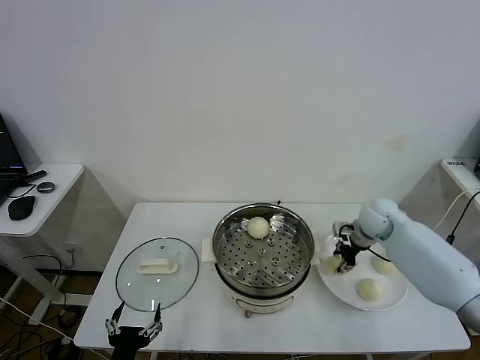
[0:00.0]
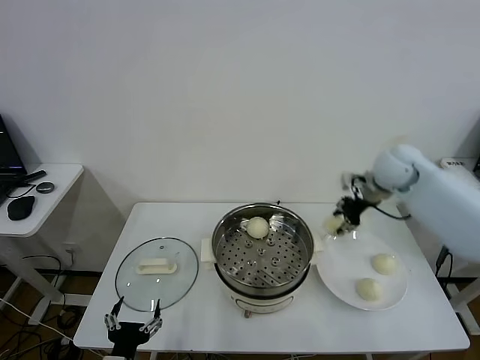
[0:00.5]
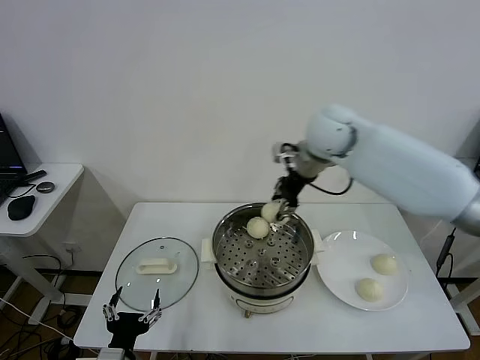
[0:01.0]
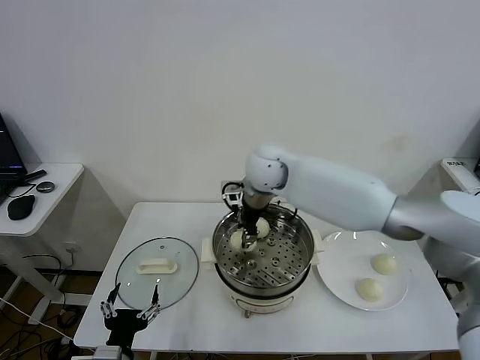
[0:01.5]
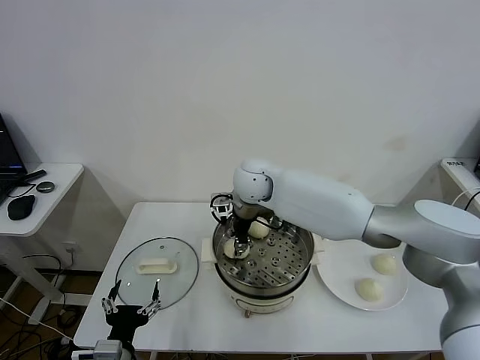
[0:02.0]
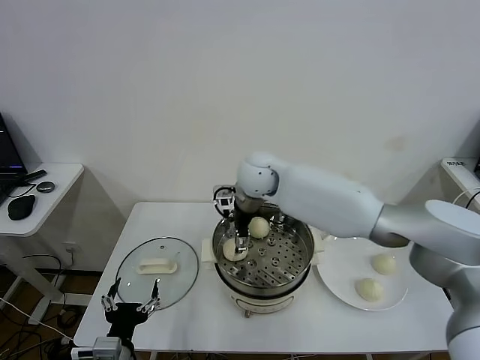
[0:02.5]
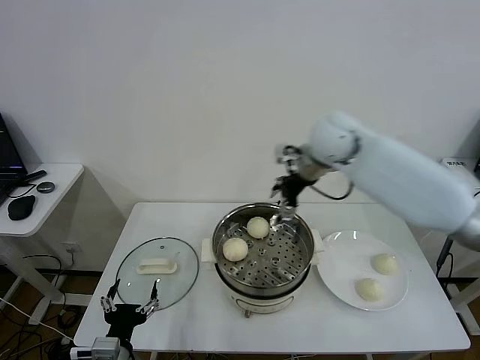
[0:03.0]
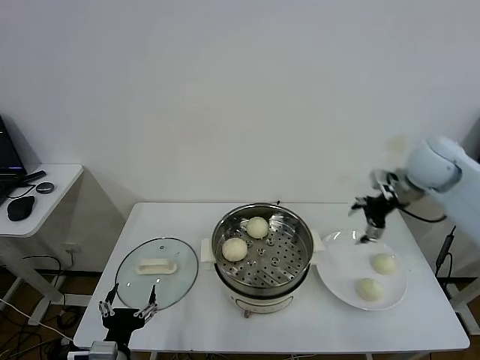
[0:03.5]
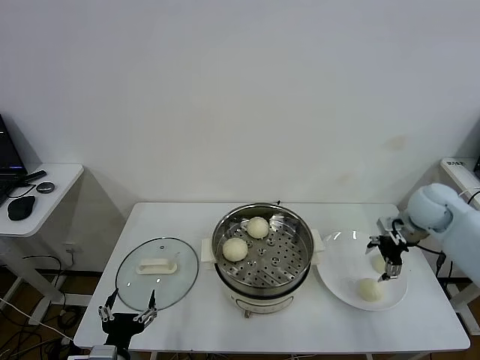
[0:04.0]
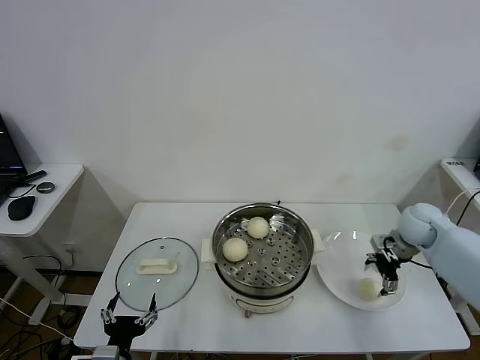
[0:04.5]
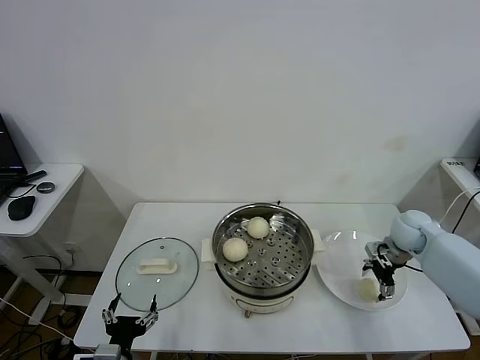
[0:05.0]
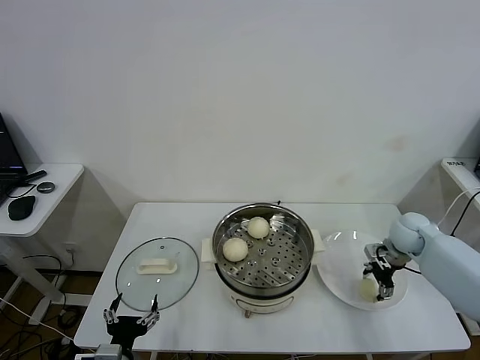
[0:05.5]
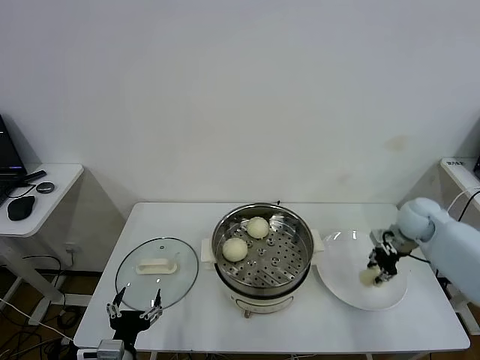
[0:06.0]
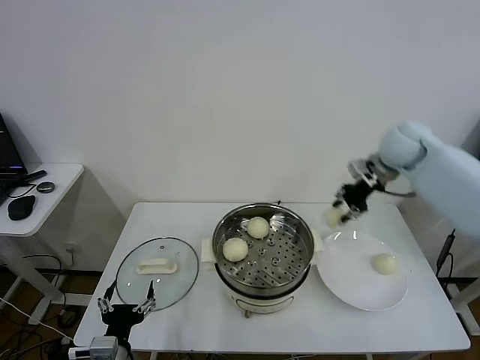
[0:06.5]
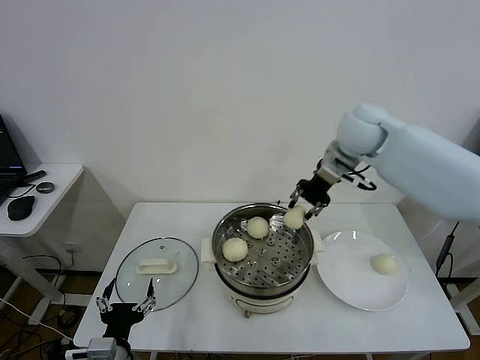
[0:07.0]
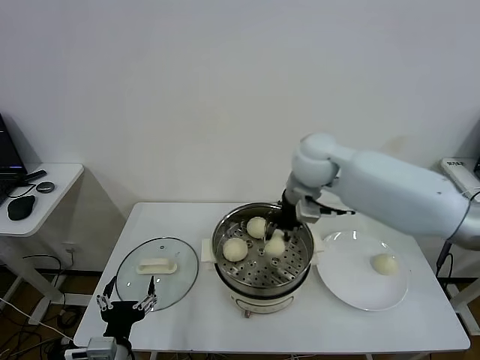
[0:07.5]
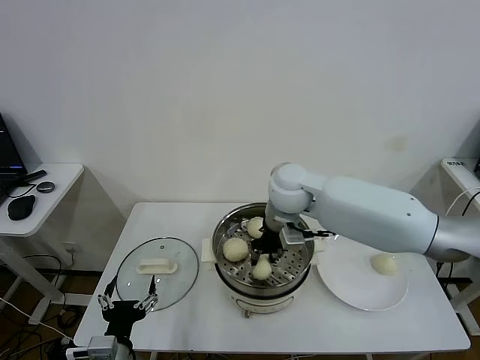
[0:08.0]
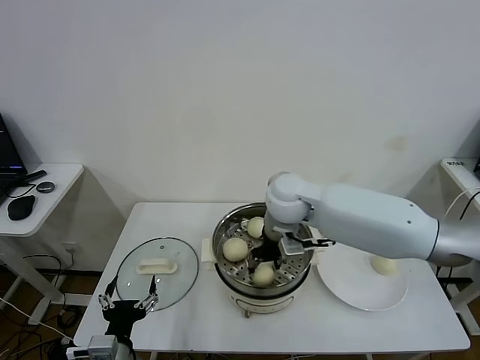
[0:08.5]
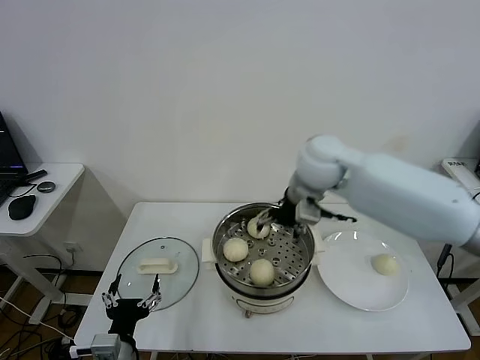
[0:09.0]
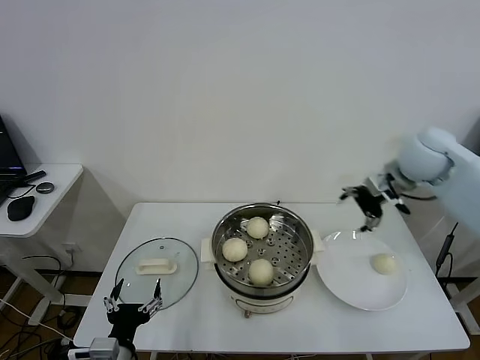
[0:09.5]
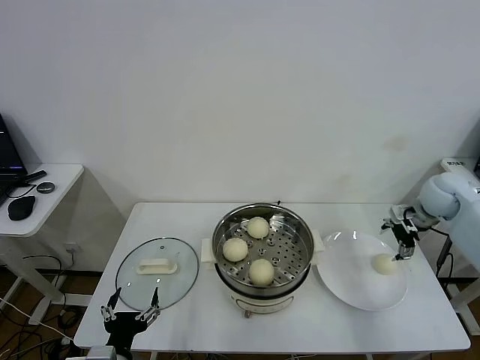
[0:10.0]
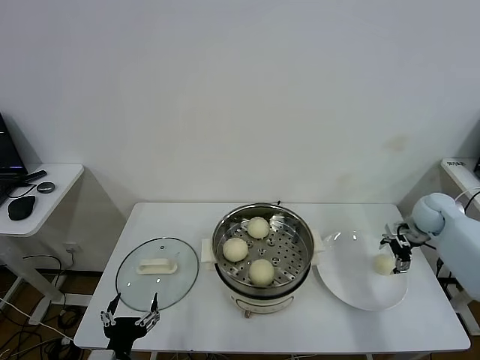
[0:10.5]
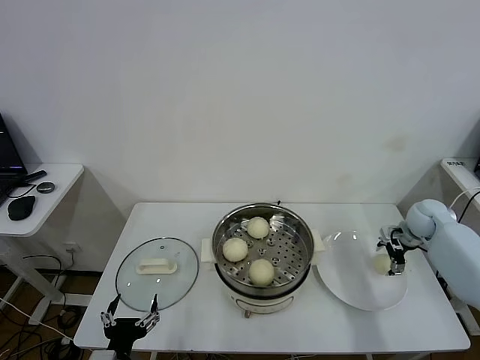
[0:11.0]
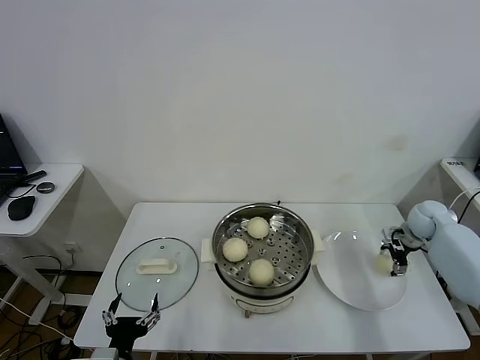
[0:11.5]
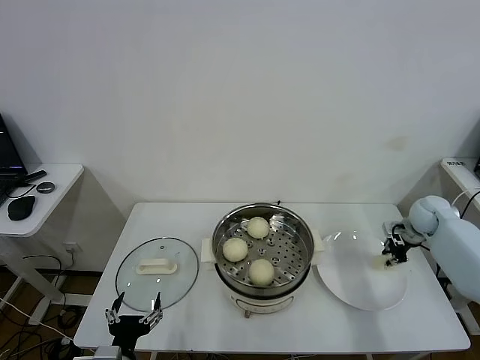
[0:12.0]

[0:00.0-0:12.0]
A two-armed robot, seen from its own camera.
Task of the whole recording: take steamed baozi put them in steamer.
Step, 0:00.0 to 0:02.0: Place the baozi on the steamer with right gripper.
Step, 0:03.0 to 0:05.5: Grasp the baozi in the plate with right gripper.
Step, 0:06.0 to 0:08.5: Place the baozi on the steamer with right gripper.
Step, 0:09.0 to 0:11.5: Grasp the baozi in the plate with right gripper.
0:00.0 to 0:02.0: The right gripper is displaced to the left by approximately 30 cm.
0:02.0 to 0:04.0: The right gripper travels to the right by roughly 40 cm, and opens.
0:04.0 to 0:06.0: The right gripper shifts roughly 5 cm downward, and closes.
0:06.0 to 0:08.0: The right gripper travels to the left by approximately 30 cm.
0:08.0 to 0:10.0: The right gripper heads to the right, covering some 35 cm, and opens.
0:10.0 to 0:12.0: The right gripper is displaced downward by about 10 cm, and closes.

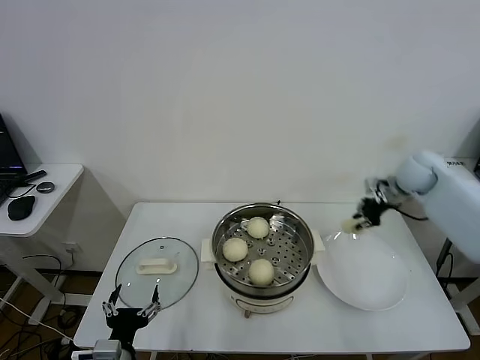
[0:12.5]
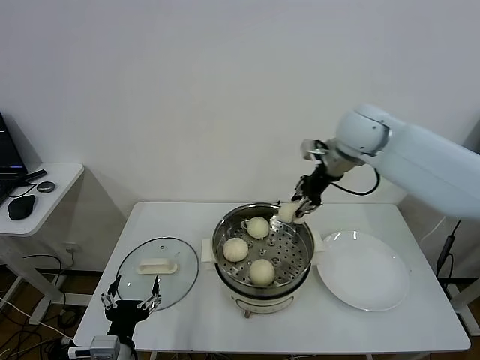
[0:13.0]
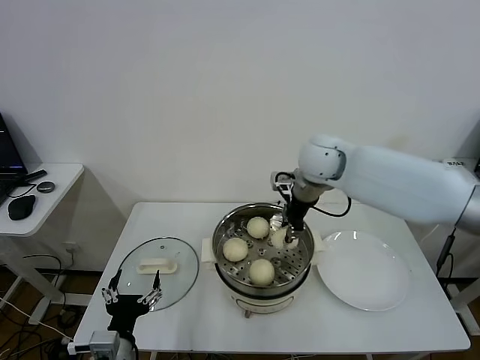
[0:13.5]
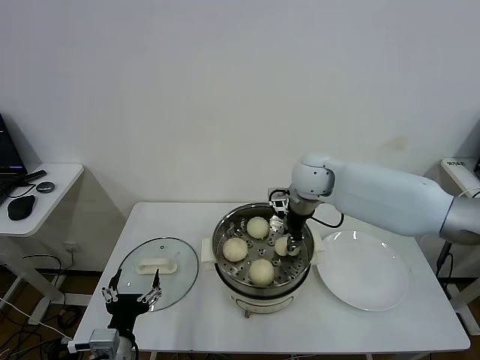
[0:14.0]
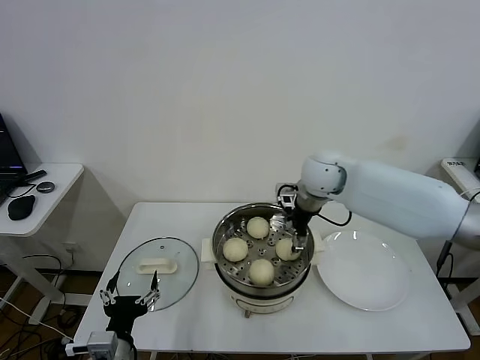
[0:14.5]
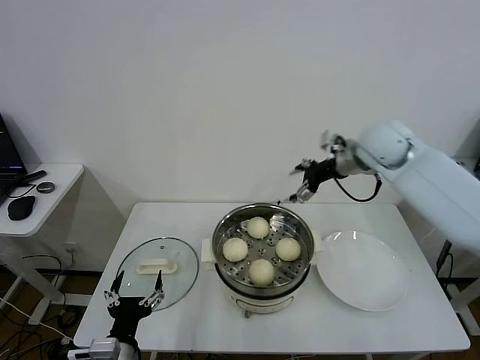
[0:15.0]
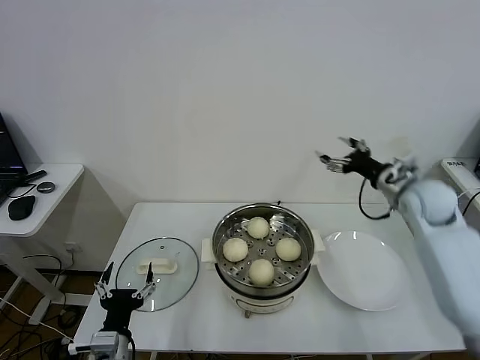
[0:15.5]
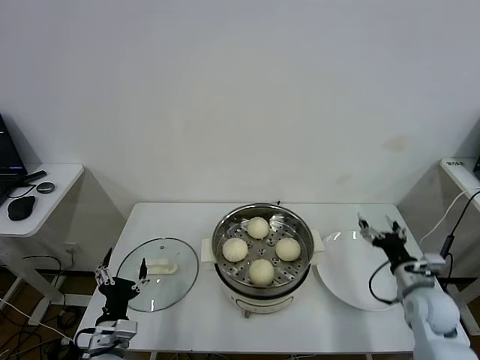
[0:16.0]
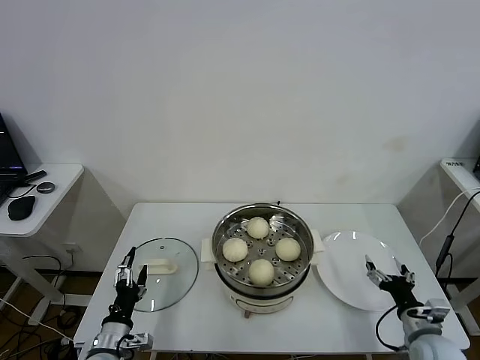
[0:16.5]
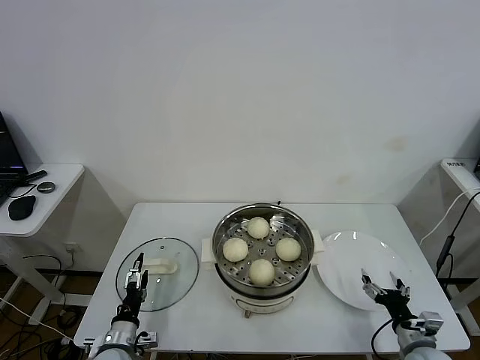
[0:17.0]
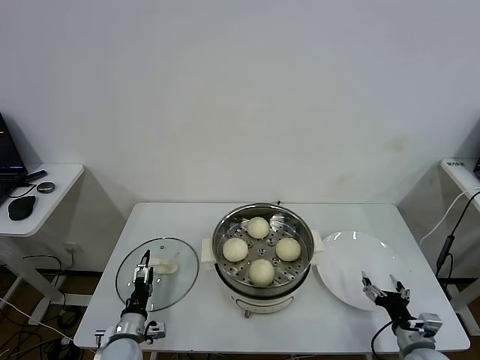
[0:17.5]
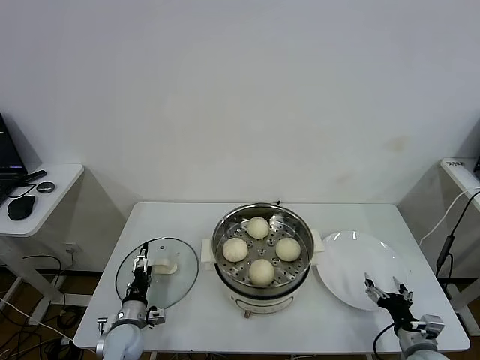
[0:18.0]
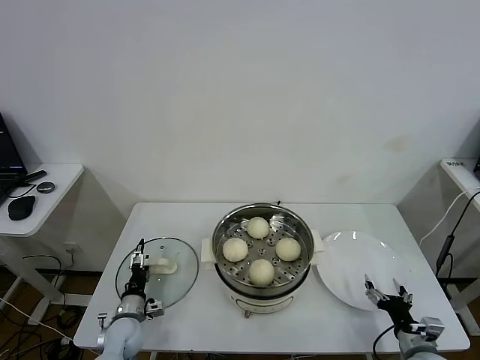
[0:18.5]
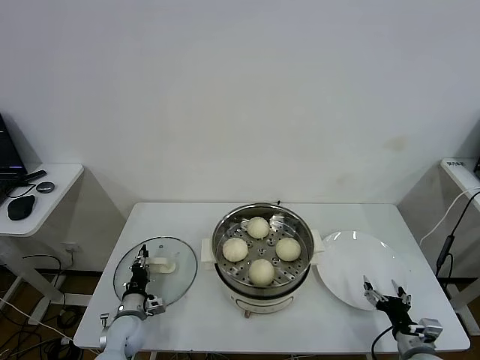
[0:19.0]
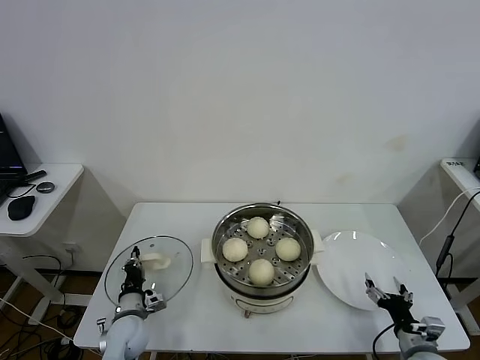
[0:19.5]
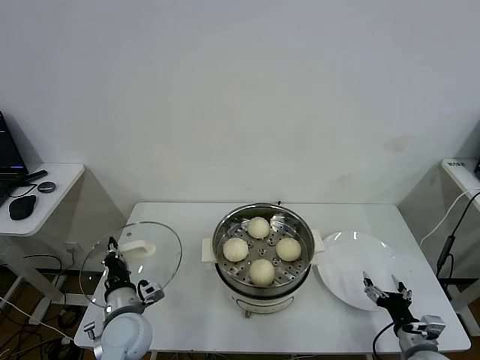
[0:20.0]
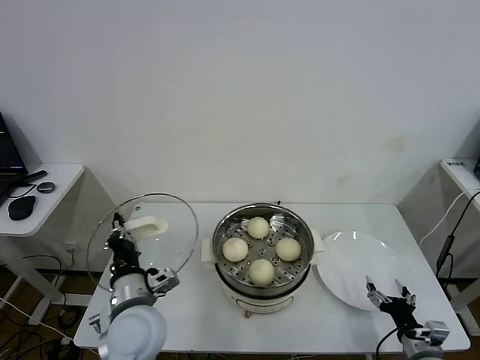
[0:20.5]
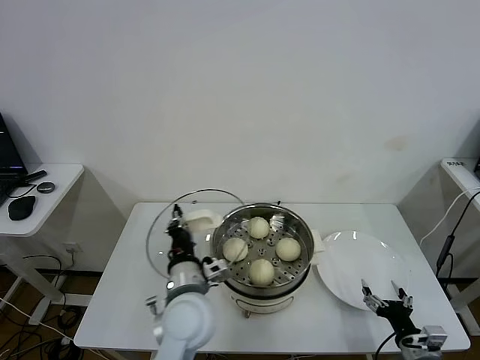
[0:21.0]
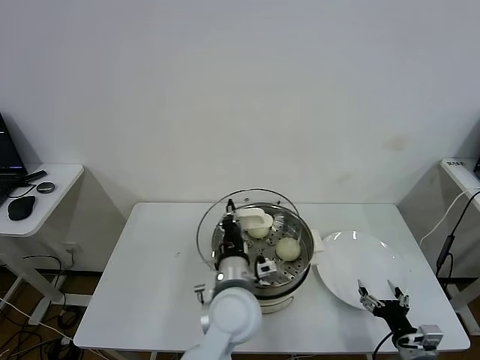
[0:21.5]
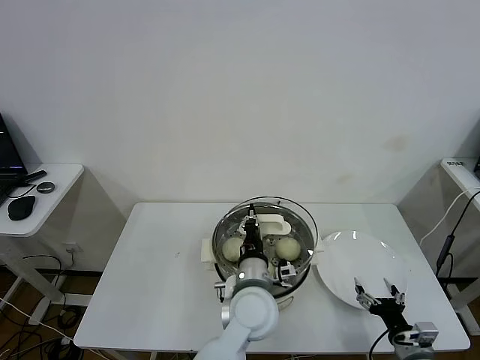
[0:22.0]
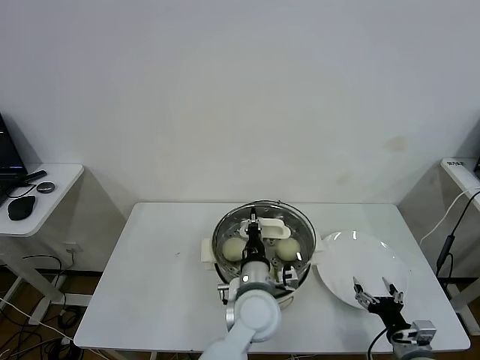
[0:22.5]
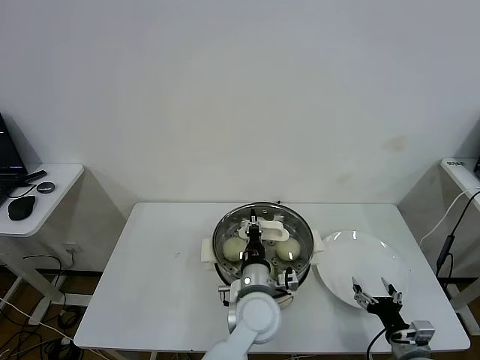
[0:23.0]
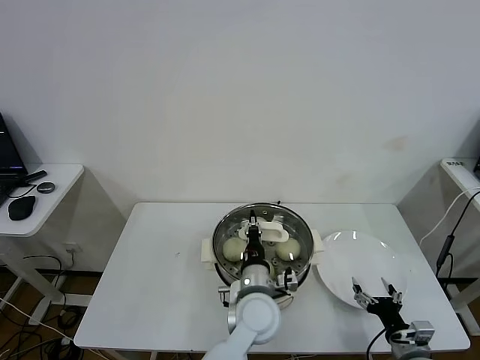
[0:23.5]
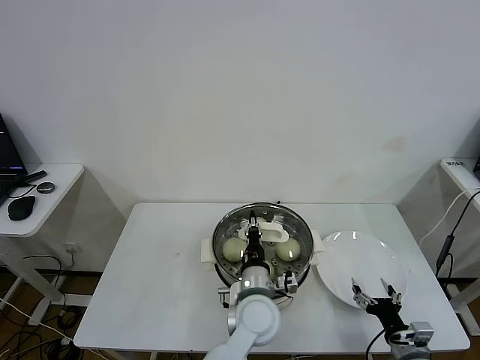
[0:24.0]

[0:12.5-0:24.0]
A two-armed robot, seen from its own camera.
Task of the whole recording: take steamed baozi put them in steamer.
Step, 0:12.5 to 0:14.5: Place the baozi on the steamer with right gripper.
Step, 0:15.0 to 0:19.0: Grasp the pot lid with left gripper.
0:12.5 to 0:14.5: The right gripper goes about 25 cm to the left, and opens.
0:14.5 to 0:16.5: The left gripper shifts about 10 cm downward and forward. Meanwhile the right gripper travels backward, downward and to the right by roughly 50 cm.
0:16.5 to 0:18.5: The left gripper heads forward and downward, covering approximately 15 cm; the right gripper moves about 5 cm.
0:18.5 to 0:20.0: The left gripper goes roughly 15 cm upward and to the right, and closes its fingers.
0:20.0 to 0:22.0: The left gripper goes about 25 cm to the right.
0:22.0 to 0:24.0: The grippers move only a little.

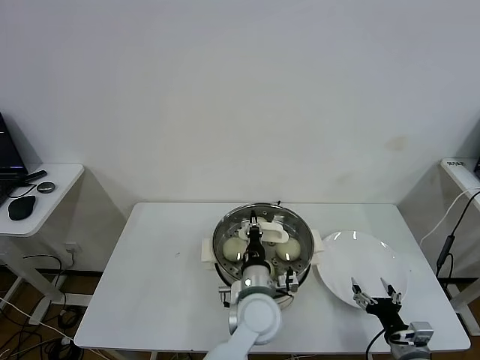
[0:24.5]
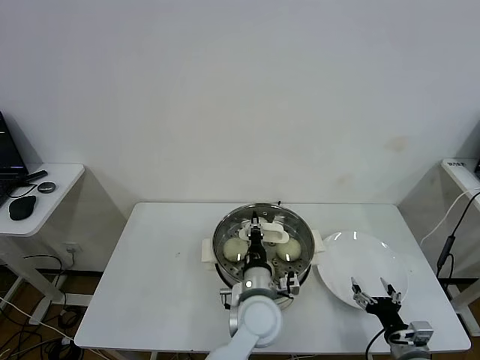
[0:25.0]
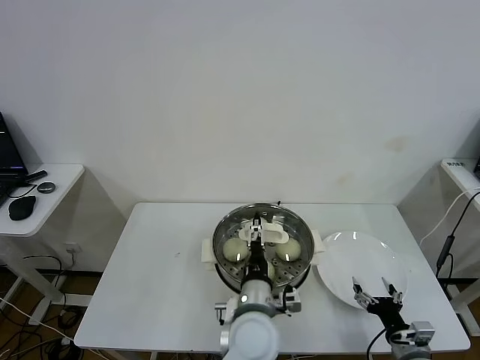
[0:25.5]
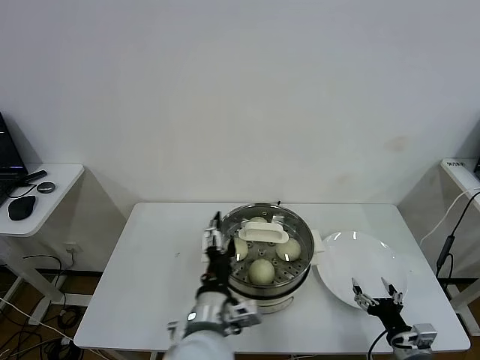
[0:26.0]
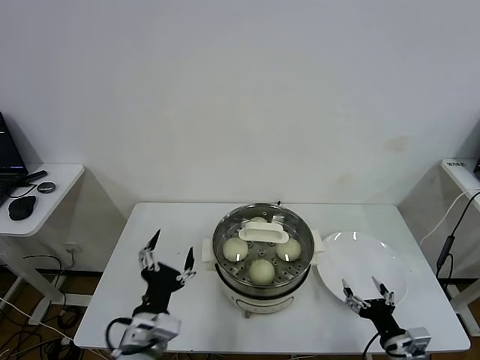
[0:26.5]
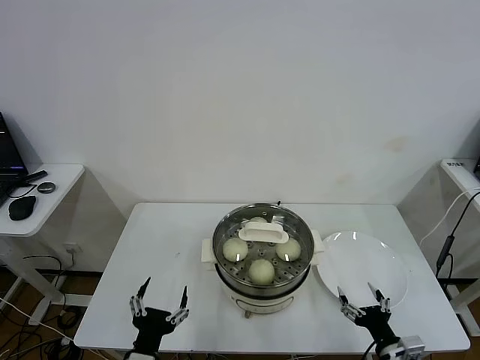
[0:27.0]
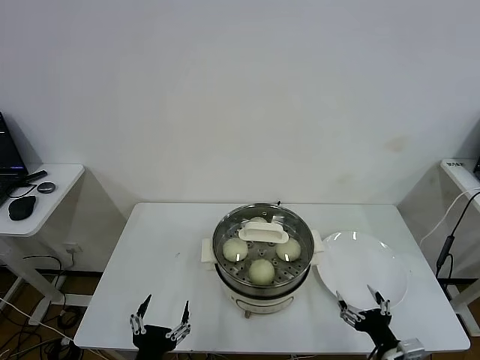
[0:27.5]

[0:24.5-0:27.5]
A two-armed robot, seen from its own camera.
Task of the whole recording: take steamed baozi put them in steamer.
0:24.5 to 0:26.0: The left gripper goes some 15 cm backward, to the left and upward, and opens.
0:26.0 to 0:27.5: The right gripper shifts by roughly 5 cm. Meanwhile the left gripper is displaced to the left, backward and downward by some 20 cm.
